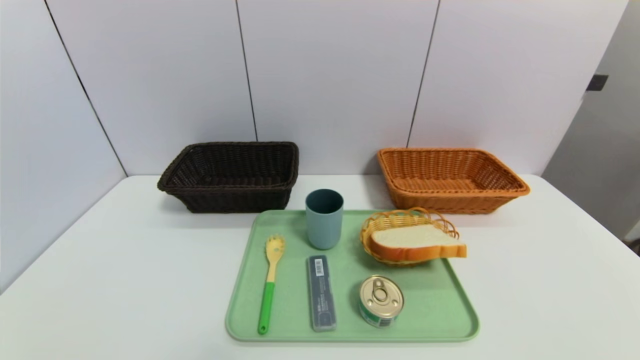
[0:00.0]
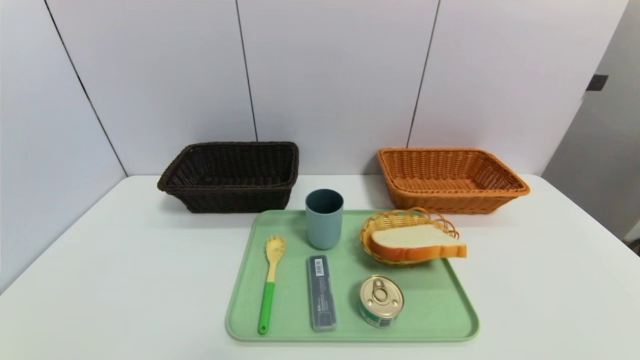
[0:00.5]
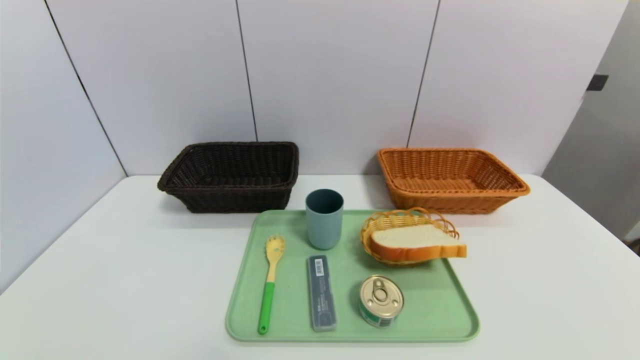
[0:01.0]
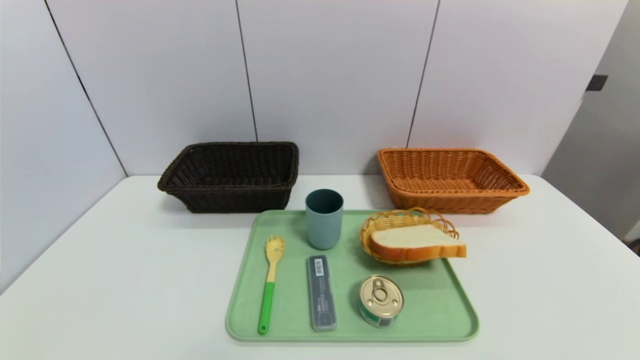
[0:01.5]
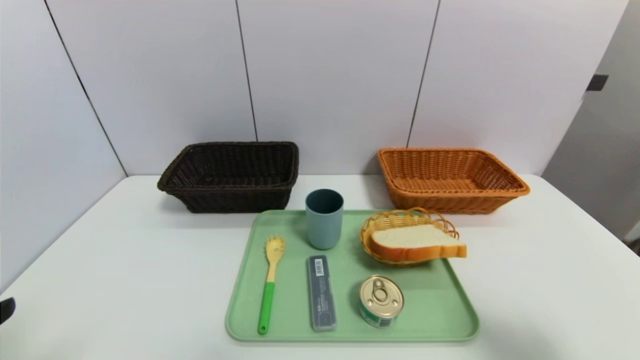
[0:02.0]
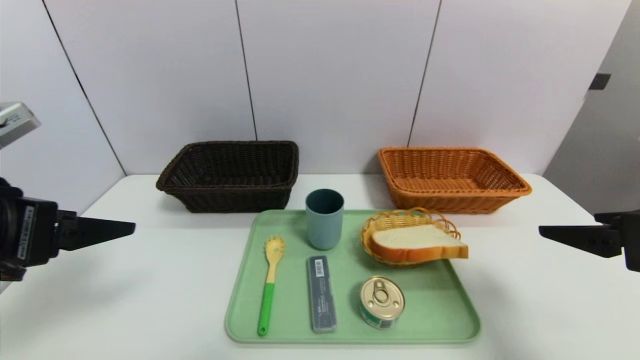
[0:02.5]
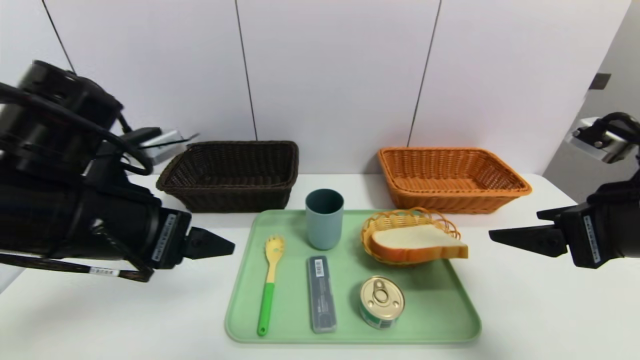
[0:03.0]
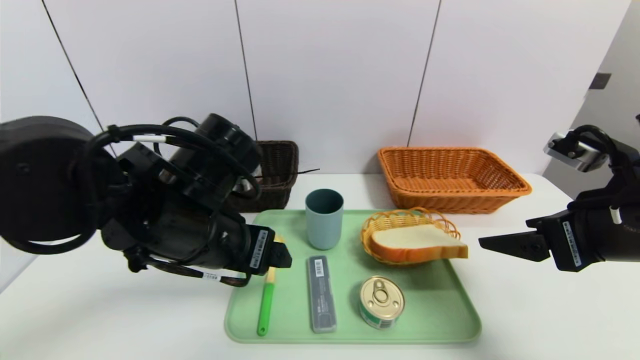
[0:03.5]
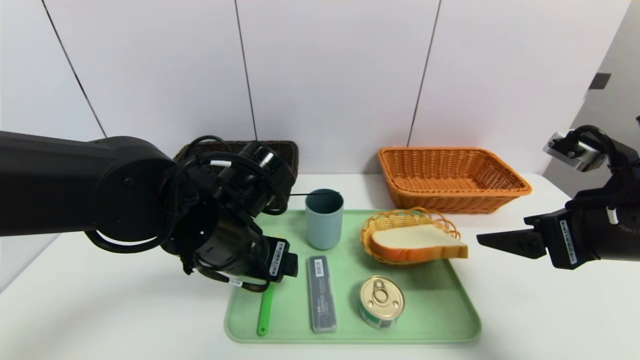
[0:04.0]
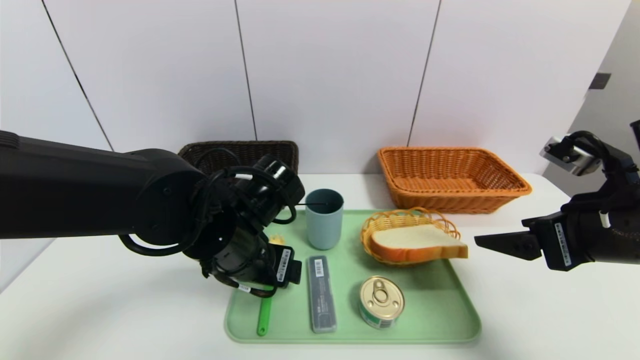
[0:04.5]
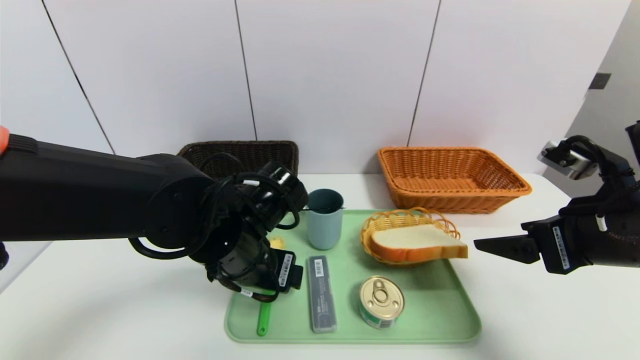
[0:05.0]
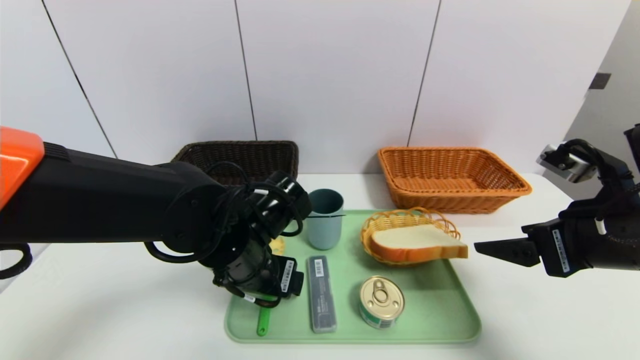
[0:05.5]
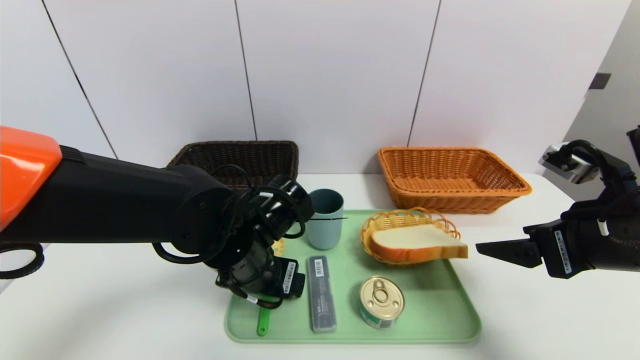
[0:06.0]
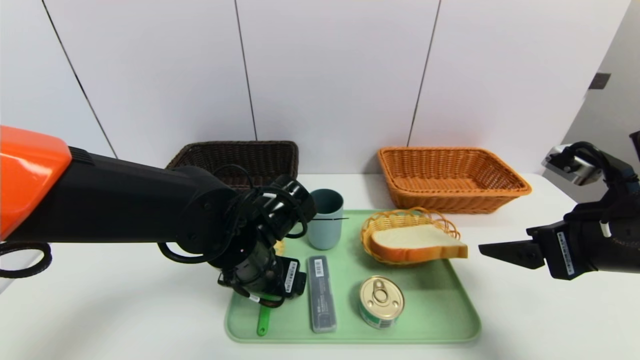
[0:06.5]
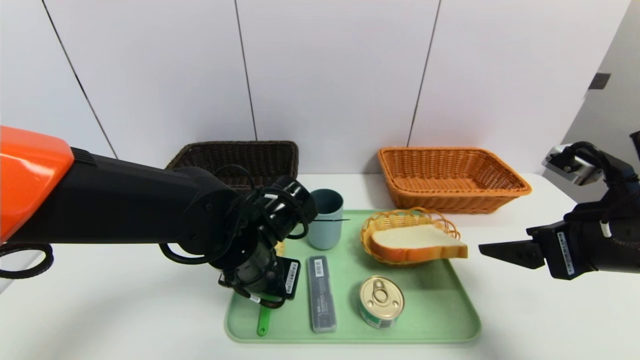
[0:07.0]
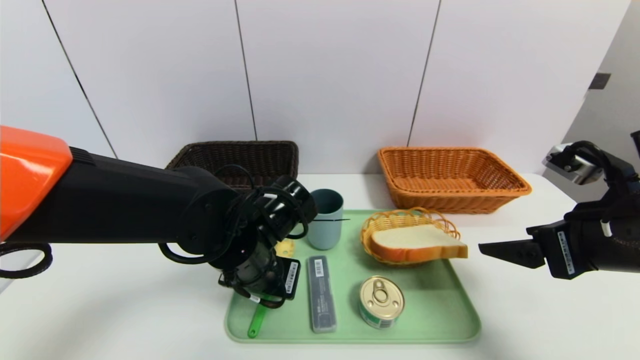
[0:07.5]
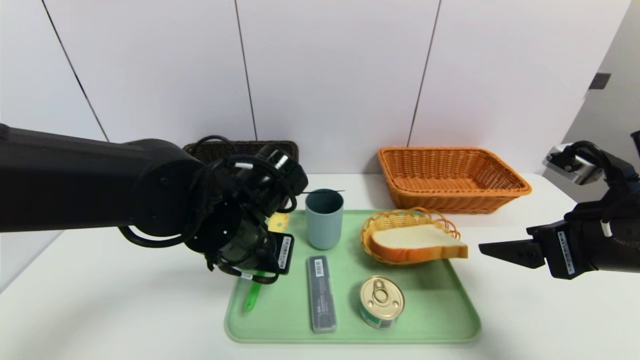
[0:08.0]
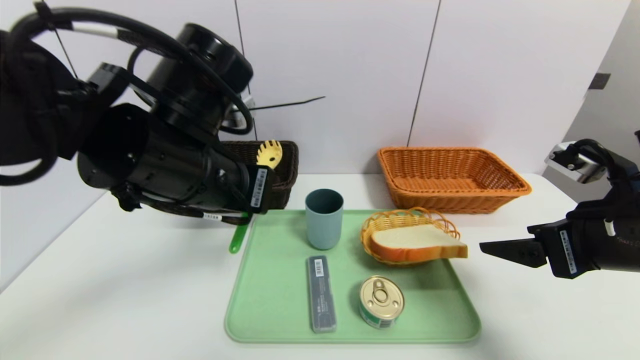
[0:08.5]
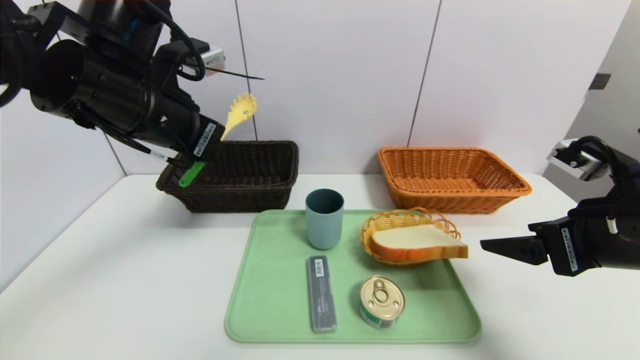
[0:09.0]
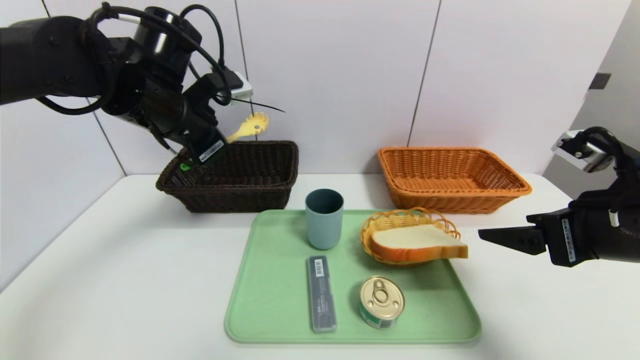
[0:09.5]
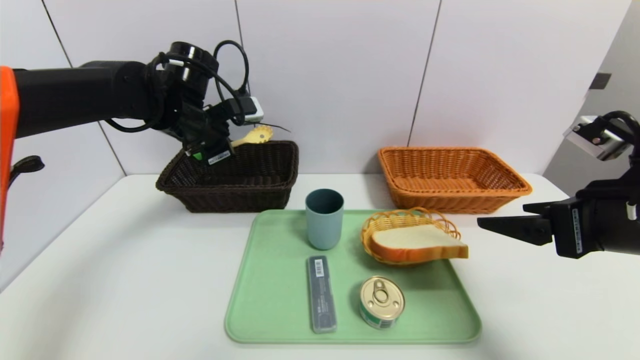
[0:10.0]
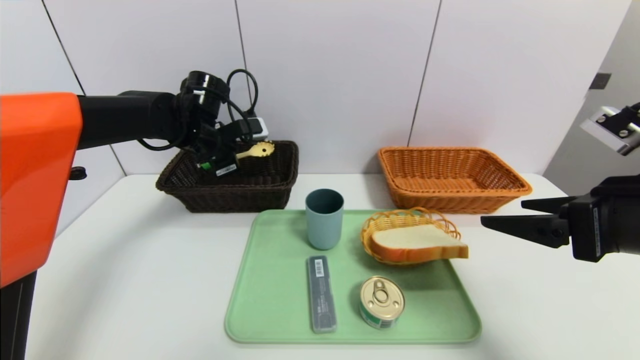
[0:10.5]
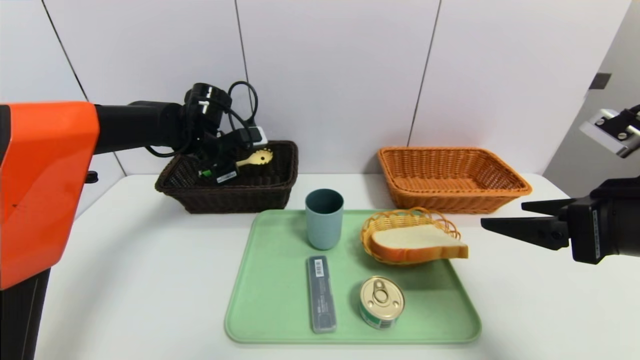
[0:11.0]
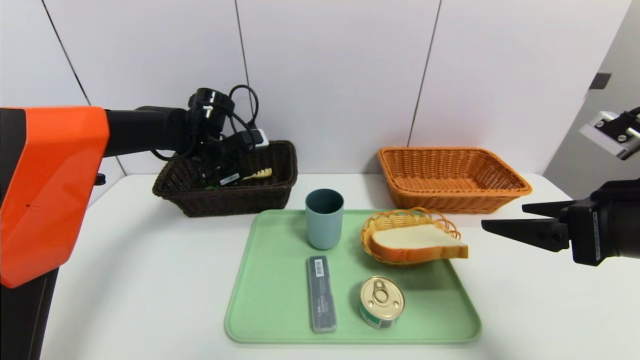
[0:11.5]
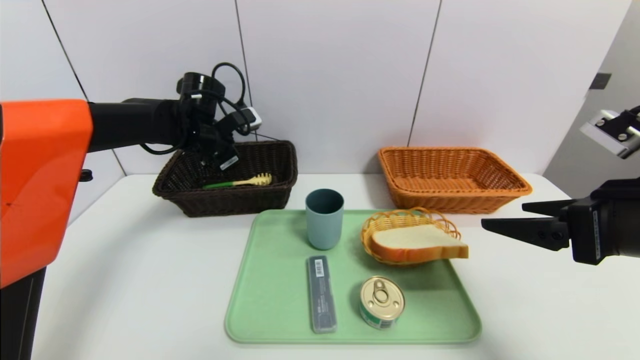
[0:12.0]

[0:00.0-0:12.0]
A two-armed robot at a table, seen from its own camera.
Task of the whole recording: place the food in the right basket with the right gripper, and place the non food items in the left basket with the left gripper.
0:00.0 to 0:02.0: The right gripper shifts approximately 20 cm upward and forward.
0:02.0 to 0:04.0: The left gripper shifts roughly 30 cm forward and to the right. The right gripper travels forward and to the left by about 15 cm.
0:04.0 to 0:06.0: The grippers make only small movements.
0:06.0 to 0:08.0: The left gripper closes up.
0:08.0 to 0:10.0: The left gripper shifts roughly 20 cm forward, to the left and upward.
0:10.0 to 0:12.0: The left gripper ends up roughly 5 cm from where it was, and opens up.

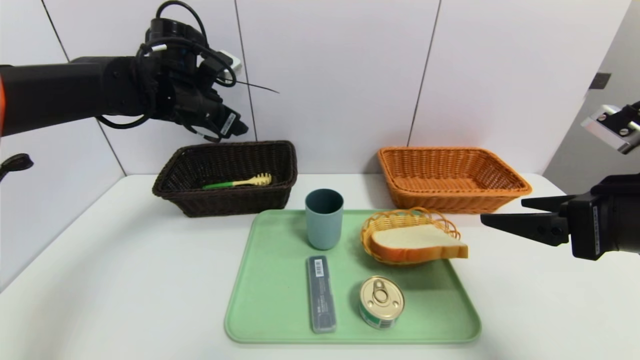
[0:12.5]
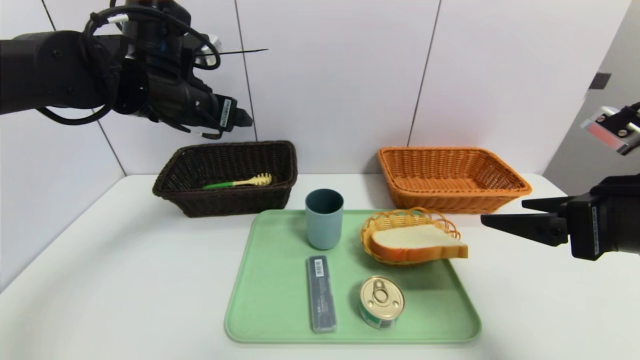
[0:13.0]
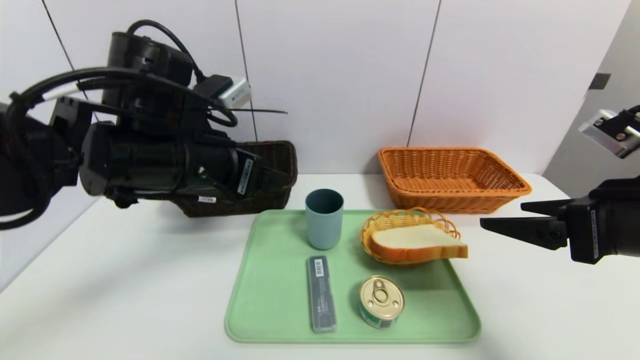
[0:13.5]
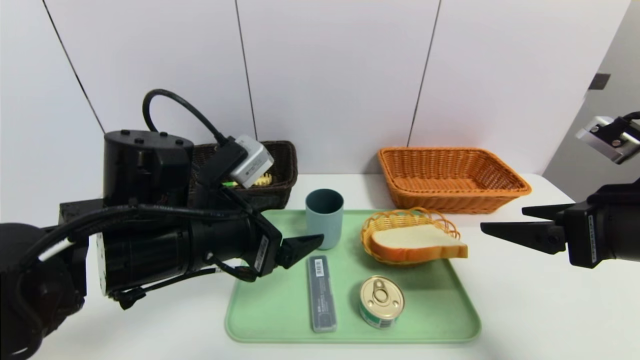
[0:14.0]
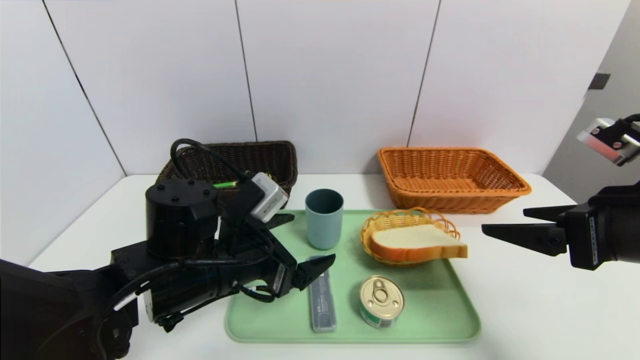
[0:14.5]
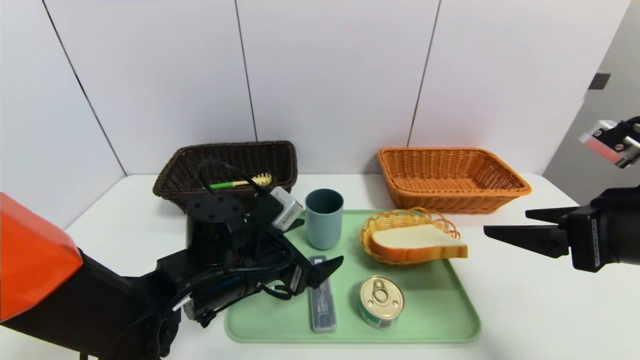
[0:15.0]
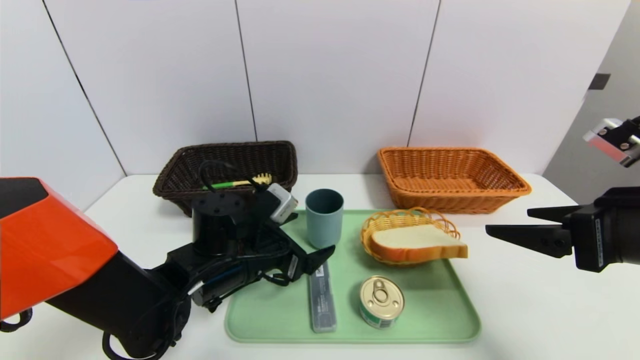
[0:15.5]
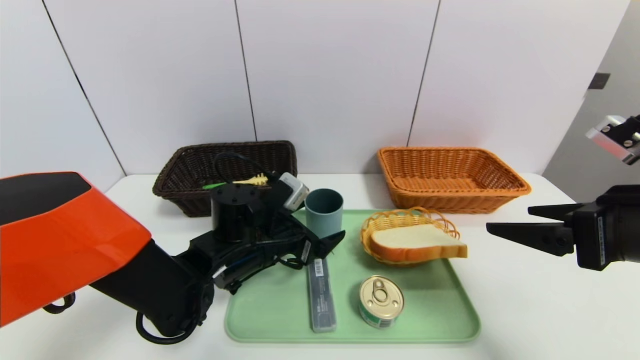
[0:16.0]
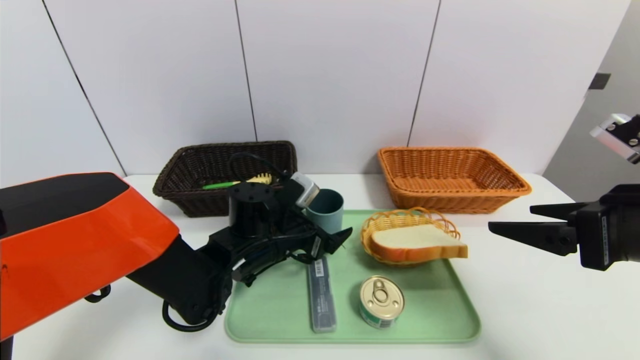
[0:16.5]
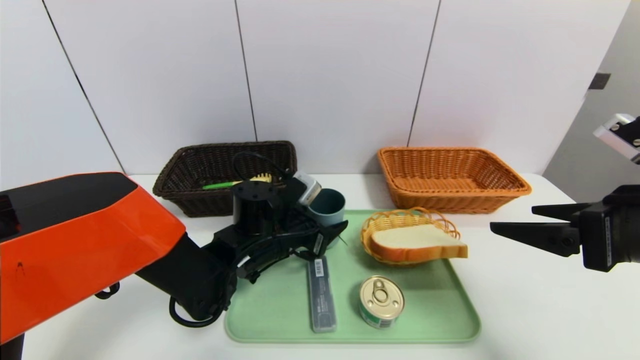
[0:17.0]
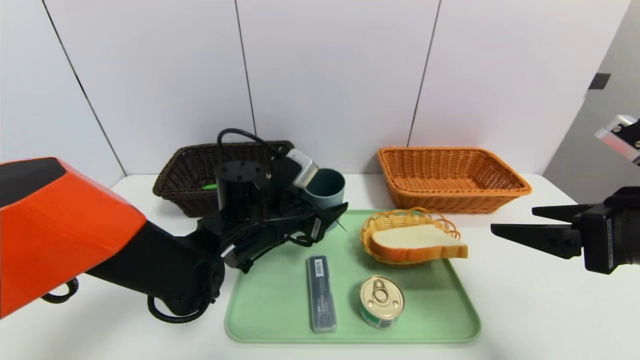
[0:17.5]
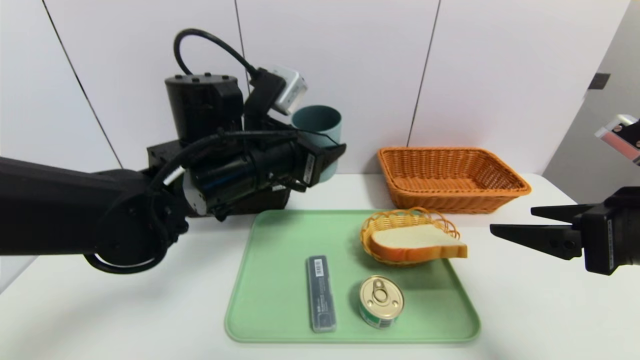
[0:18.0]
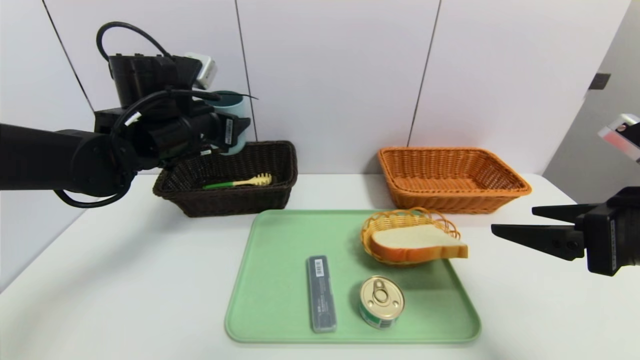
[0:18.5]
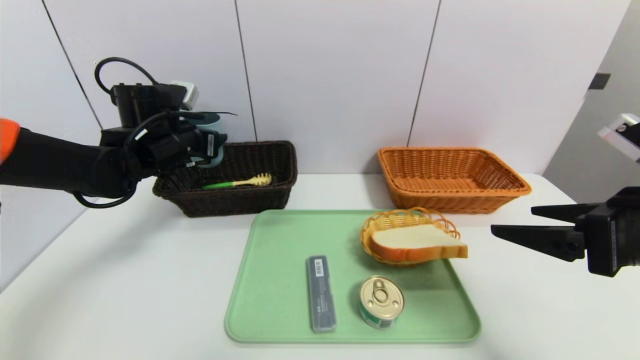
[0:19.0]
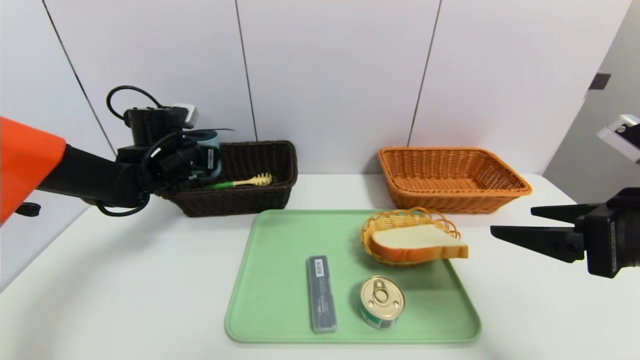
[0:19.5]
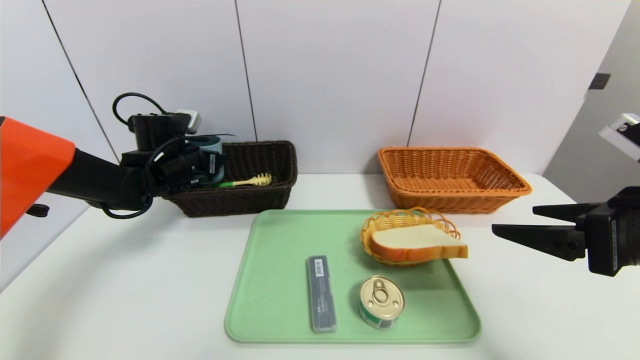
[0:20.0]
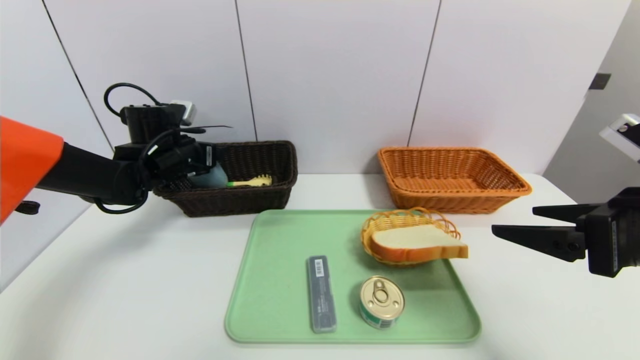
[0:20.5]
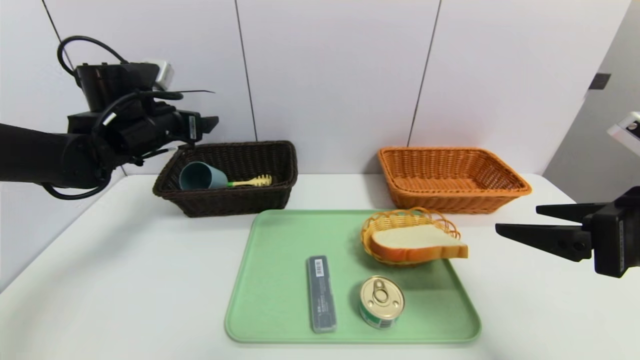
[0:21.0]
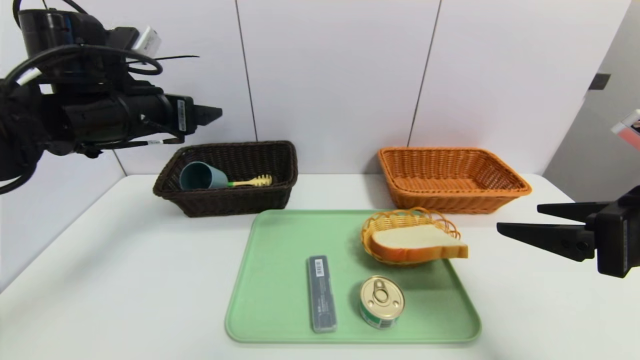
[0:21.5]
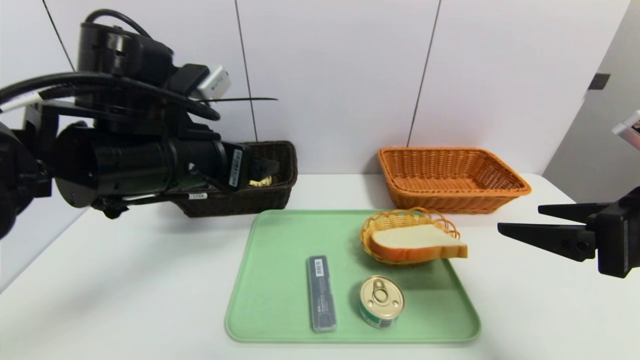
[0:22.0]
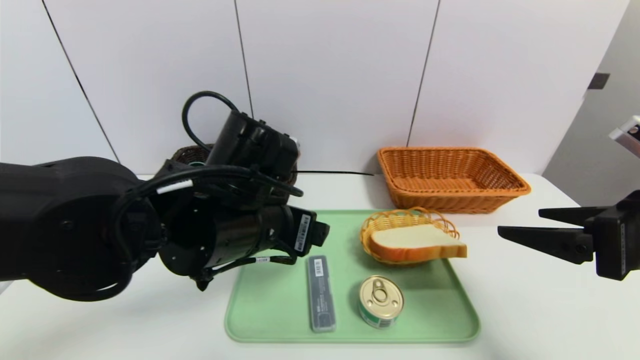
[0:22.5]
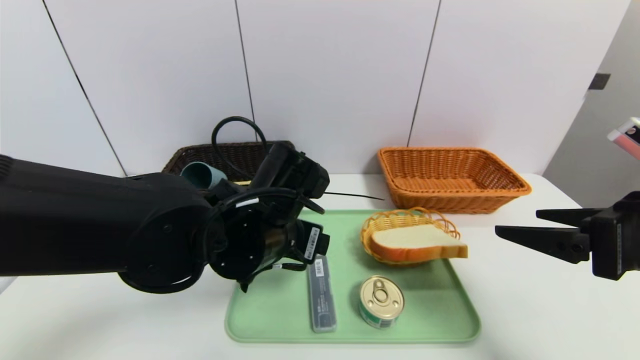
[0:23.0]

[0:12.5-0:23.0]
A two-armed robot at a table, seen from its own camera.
Task of the whole recording: place the food in the right basket with the right gripper, and place the non food items in the left basket with the left gripper.
Step, 0:13.0 to 0:21.0: Grasp the blue cup and put it in the left basket.
0:12.5 to 0:14.5: The left gripper travels backward, downward and to the right by approximately 25 cm.
0:14.5 to 0:16.5: The left gripper travels forward and downward by approximately 10 cm.
0:16.5 to 0:19.0: The left gripper shifts some 20 cm to the left, upward and forward, and closes its fingers.
0:19.0 to 0:21.0: The left gripper goes downward and returns, about 5 cm each way.
0:21.0 to 0:23.0: The left gripper moves to the right and backward, roughly 25 cm.
